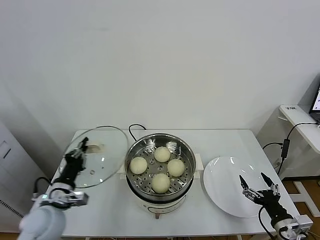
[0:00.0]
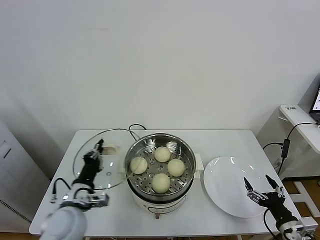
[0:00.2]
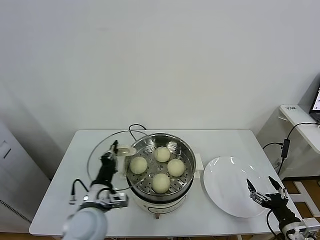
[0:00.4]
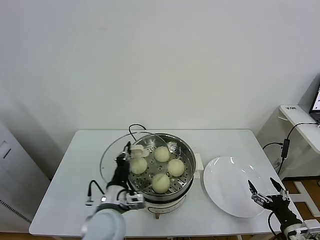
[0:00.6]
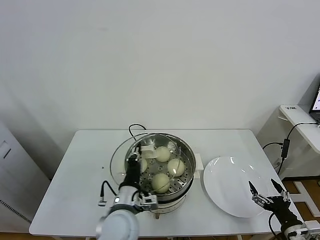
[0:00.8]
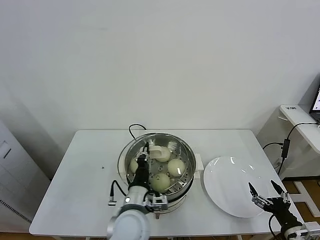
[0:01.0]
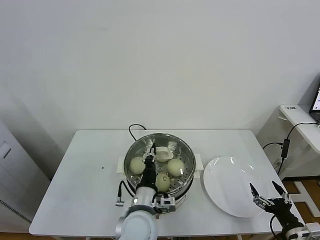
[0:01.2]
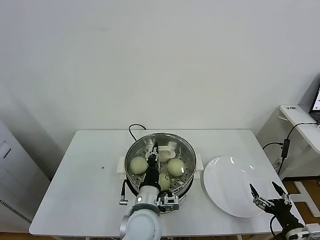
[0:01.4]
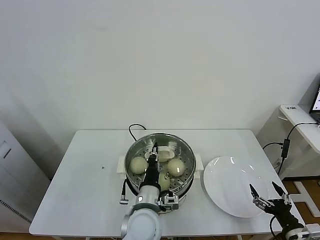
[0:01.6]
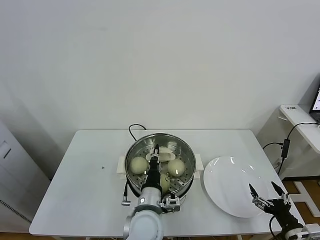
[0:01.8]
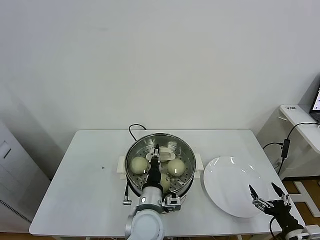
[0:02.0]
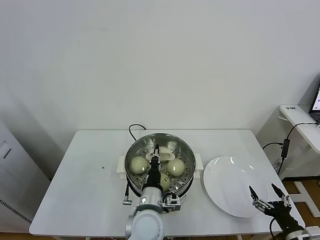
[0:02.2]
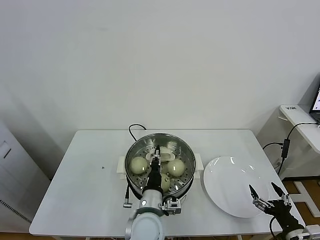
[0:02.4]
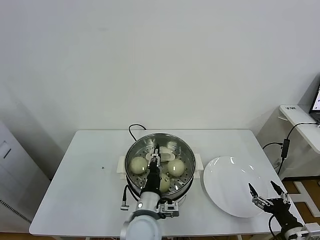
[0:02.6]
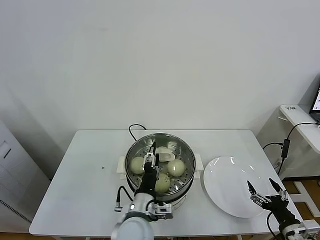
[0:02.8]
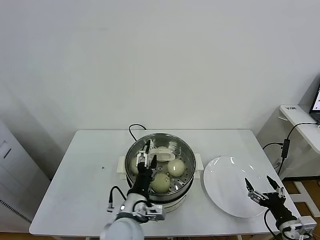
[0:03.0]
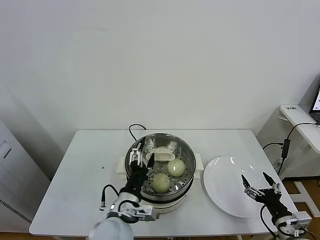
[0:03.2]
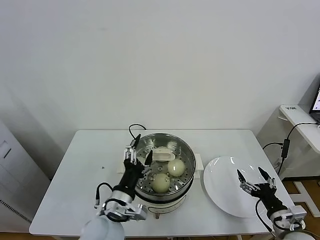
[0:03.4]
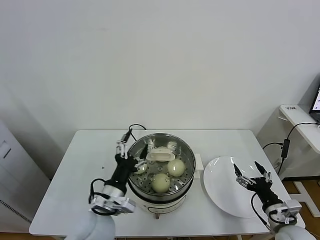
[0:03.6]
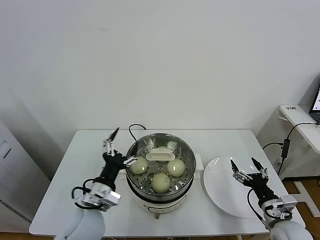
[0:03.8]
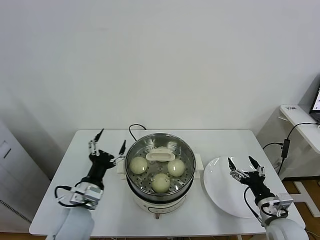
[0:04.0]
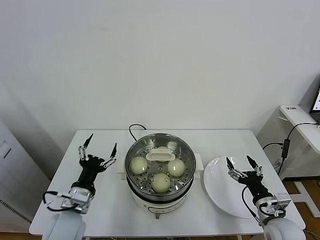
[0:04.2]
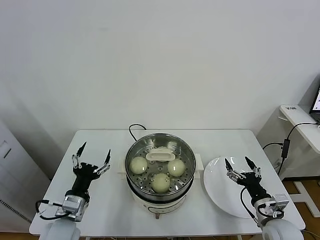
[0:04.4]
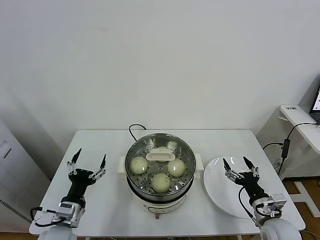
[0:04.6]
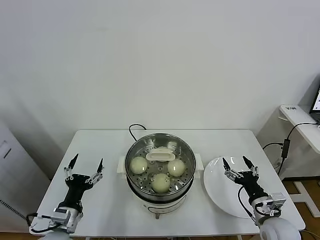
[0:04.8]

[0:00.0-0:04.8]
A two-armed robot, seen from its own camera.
Task of the whole recording: take steamed baozi put them in steamer.
Step, 0:00.0 to 0:03.0: Place the pot lid on the steamer with left gripper.
0:00.0 to 0:01.6: The left gripper heads to the right, covering roughly 30 cm.
0:01.6 to 0:03.2: The left gripper is displaced to the left by about 5 cm, and opens its fingers.
0:03.2 to 0:04.8: The left gripper goes roughly 20 cm to the left. Meanwhile the right gripper goes approximately 10 cm forward and to the left.
